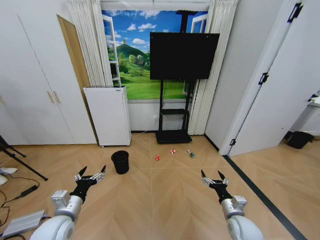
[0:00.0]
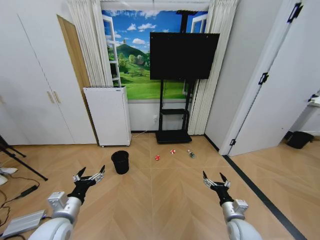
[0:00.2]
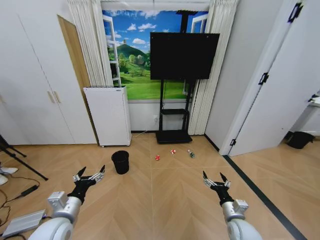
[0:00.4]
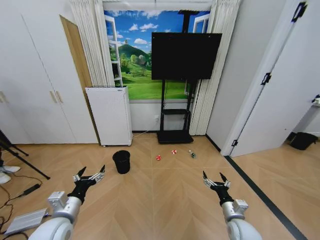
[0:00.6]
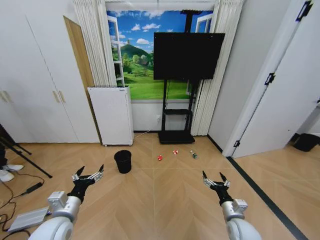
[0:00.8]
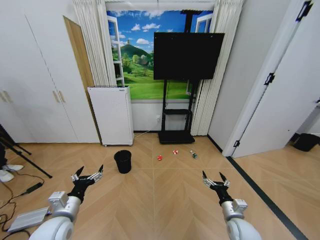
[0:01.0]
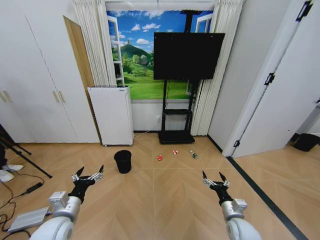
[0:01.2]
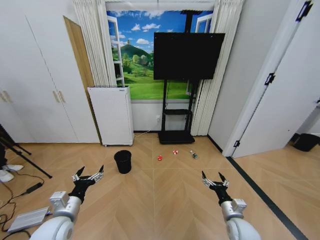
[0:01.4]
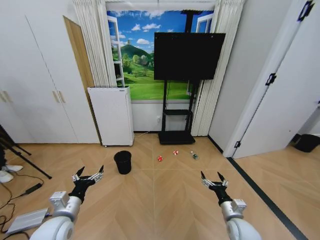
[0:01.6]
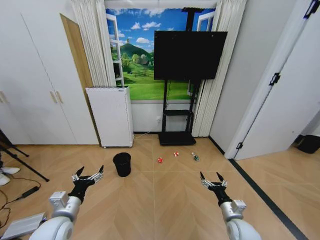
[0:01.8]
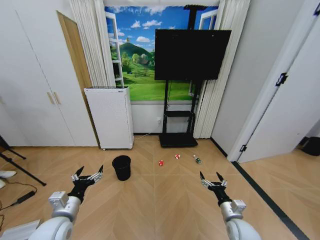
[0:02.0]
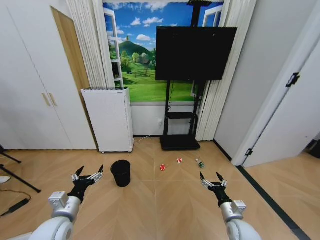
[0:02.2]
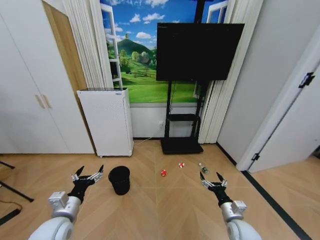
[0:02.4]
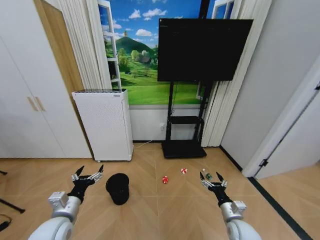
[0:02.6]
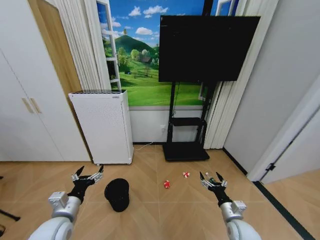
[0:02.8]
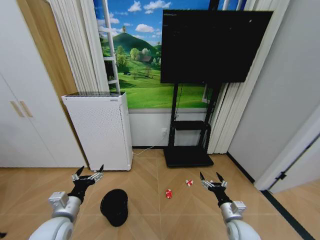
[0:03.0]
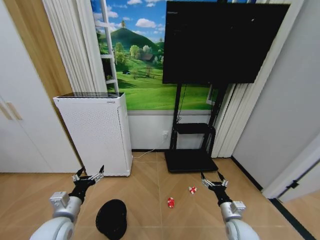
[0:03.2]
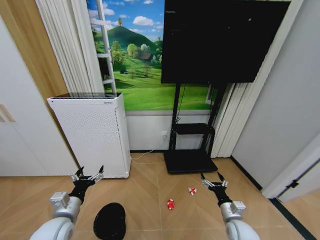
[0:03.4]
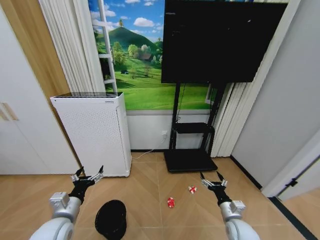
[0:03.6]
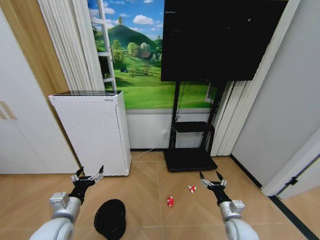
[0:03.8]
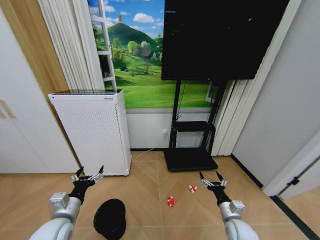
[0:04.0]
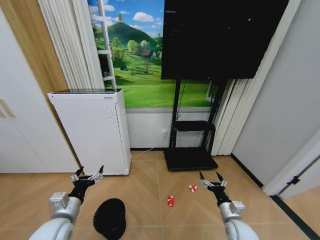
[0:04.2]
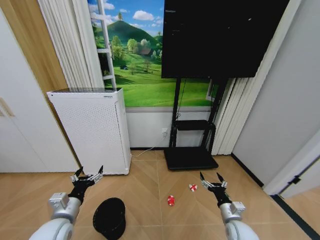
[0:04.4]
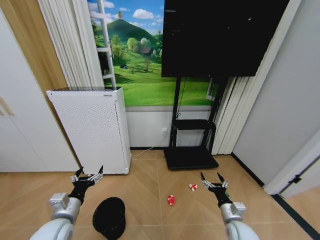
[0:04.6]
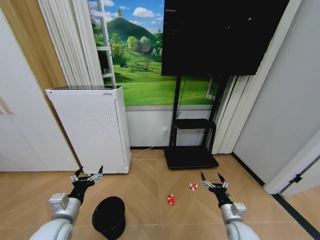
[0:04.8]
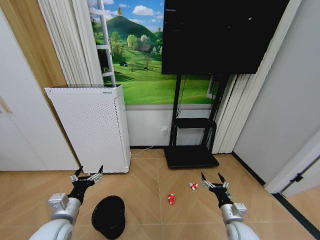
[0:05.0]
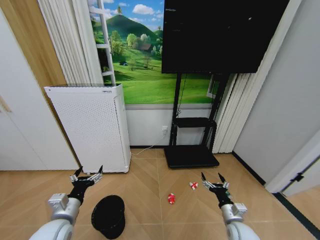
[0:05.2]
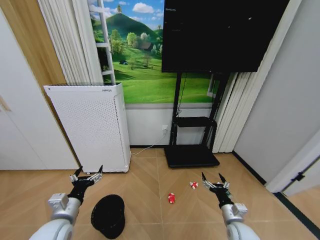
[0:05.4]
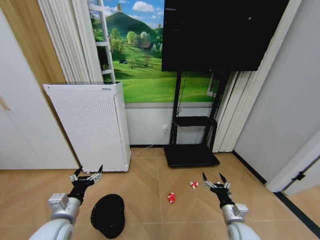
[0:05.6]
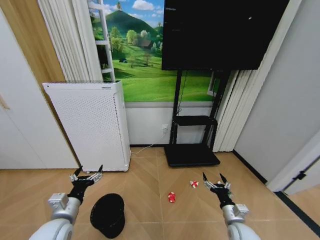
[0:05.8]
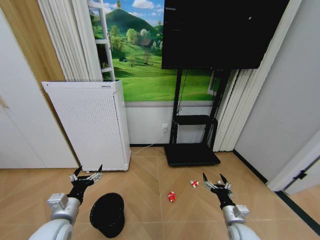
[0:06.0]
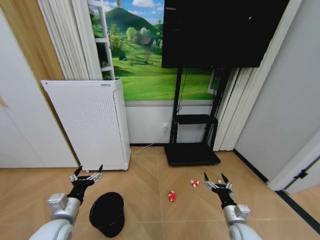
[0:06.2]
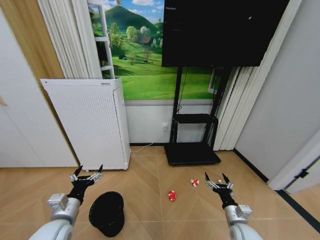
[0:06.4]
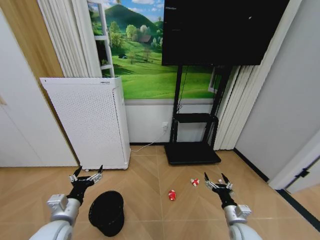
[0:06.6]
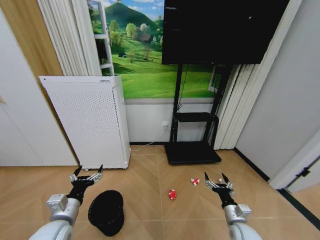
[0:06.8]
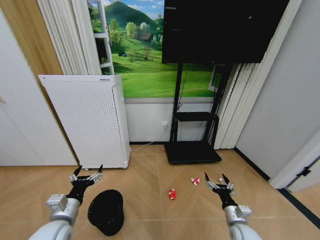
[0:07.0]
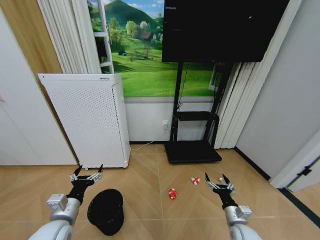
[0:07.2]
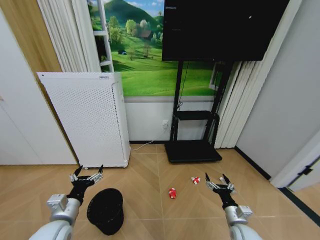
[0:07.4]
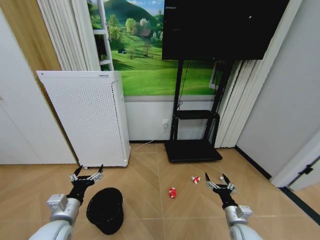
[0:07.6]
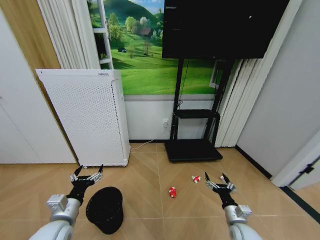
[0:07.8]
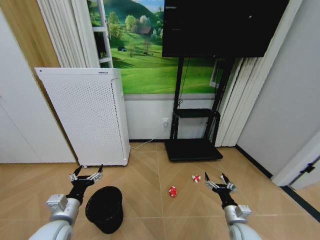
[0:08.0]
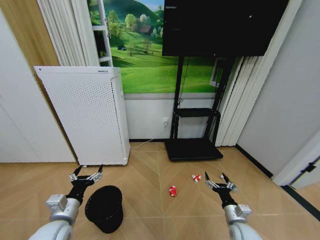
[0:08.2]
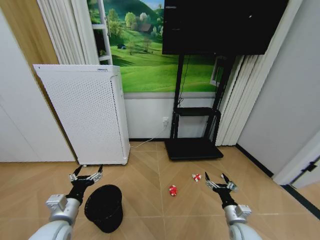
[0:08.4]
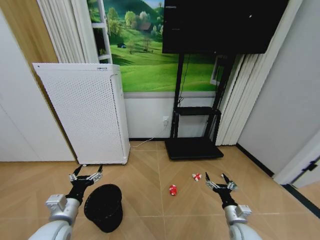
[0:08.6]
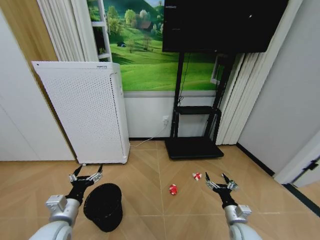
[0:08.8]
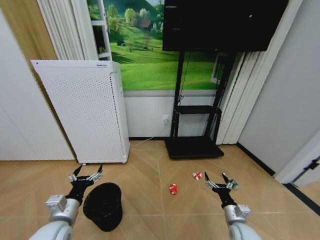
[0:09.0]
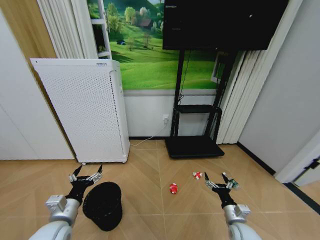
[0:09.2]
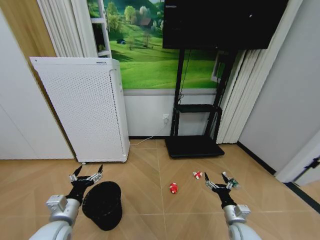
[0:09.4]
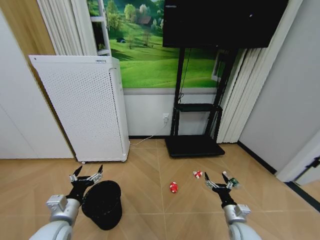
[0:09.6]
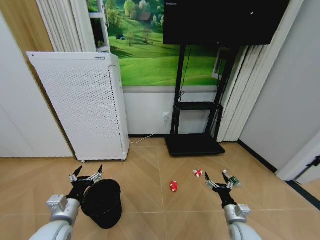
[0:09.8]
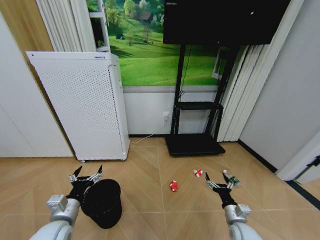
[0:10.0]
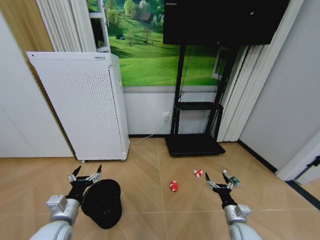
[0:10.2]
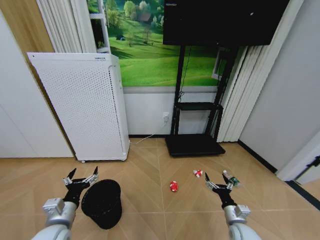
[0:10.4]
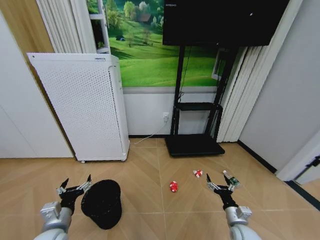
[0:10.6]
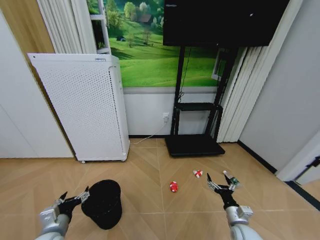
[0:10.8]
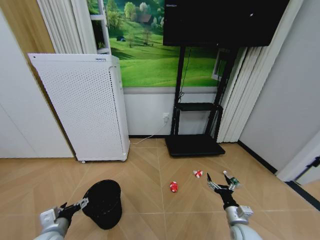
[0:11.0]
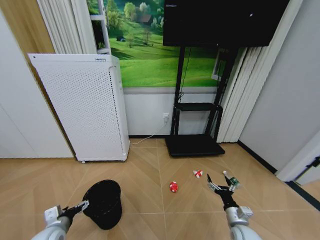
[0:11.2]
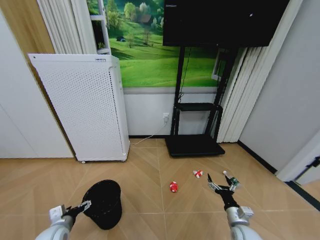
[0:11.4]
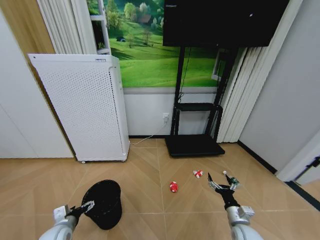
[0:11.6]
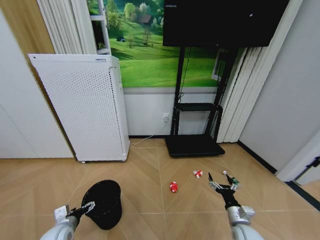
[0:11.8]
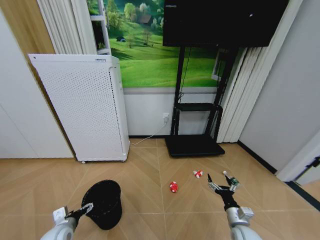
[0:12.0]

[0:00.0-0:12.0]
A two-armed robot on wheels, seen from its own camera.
Task of the whole recording: Pick up the trash bin and place the garbage on the floor into it.
0:04.4 to 0:06.0: Both grippers stay about where they are.
0:06.0 to 0:09.0: Neither gripper changes place.
0:09.0 to 0:10.4: The grippers stay close to where they were, moving slightly.
0:10.4 to 0:12.0: The left gripper moves downward, some 10 cm.

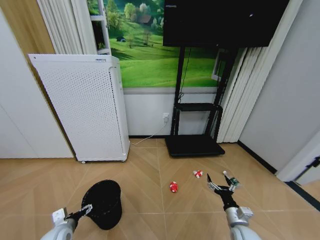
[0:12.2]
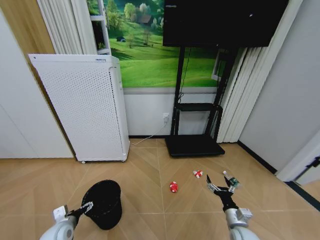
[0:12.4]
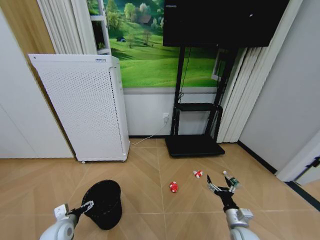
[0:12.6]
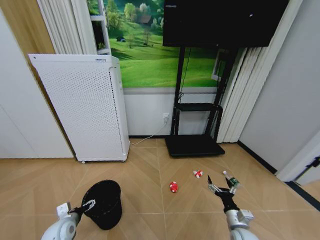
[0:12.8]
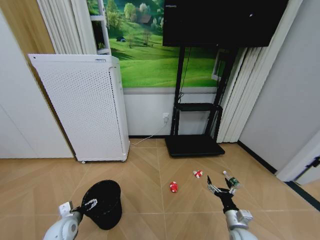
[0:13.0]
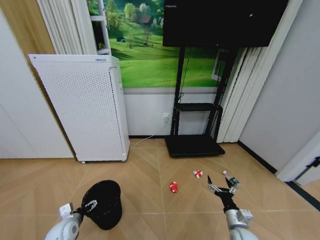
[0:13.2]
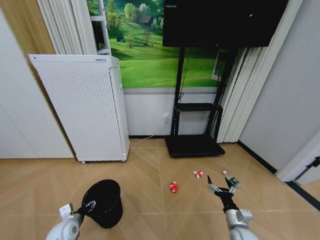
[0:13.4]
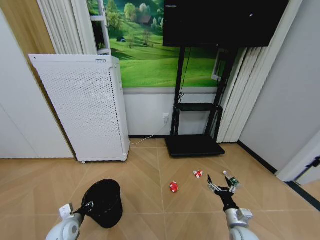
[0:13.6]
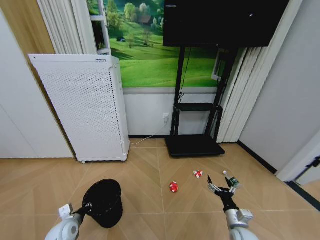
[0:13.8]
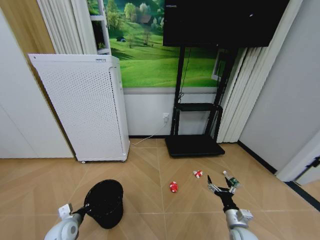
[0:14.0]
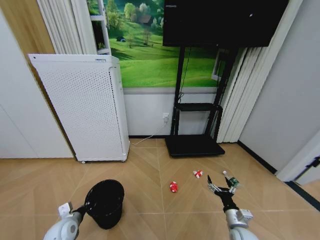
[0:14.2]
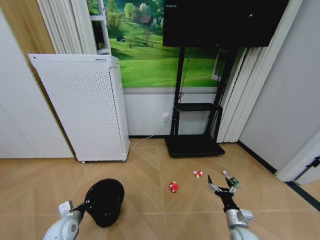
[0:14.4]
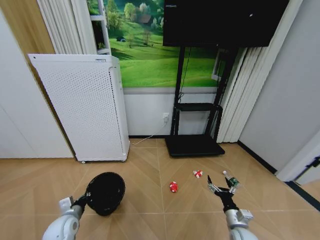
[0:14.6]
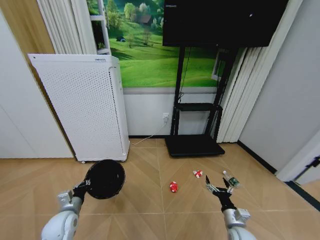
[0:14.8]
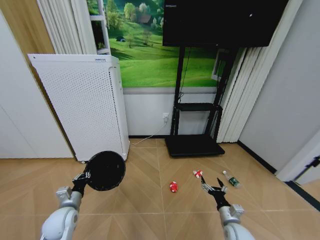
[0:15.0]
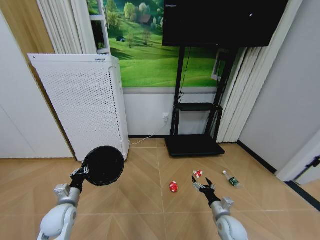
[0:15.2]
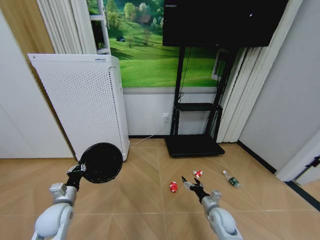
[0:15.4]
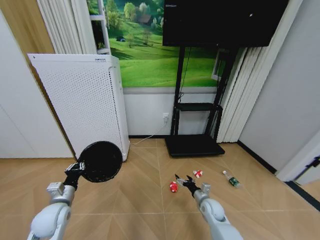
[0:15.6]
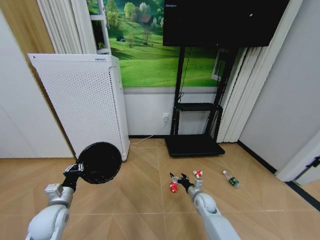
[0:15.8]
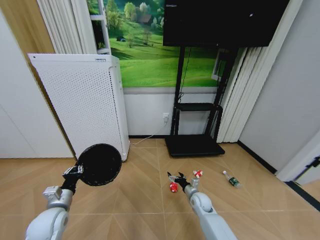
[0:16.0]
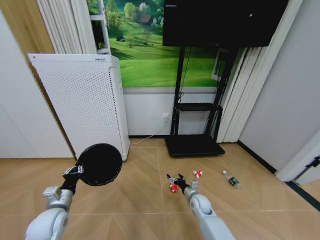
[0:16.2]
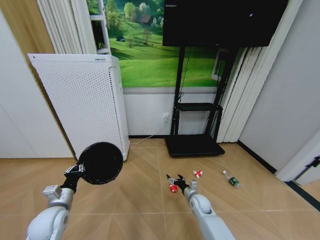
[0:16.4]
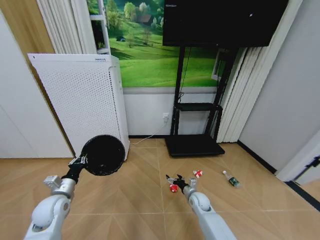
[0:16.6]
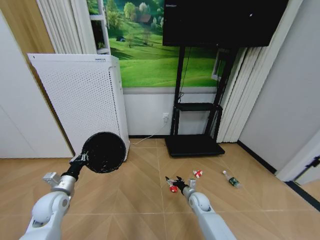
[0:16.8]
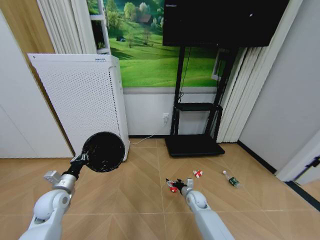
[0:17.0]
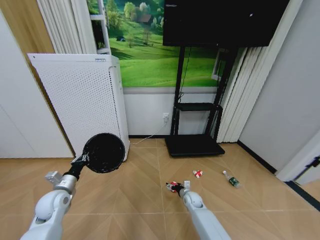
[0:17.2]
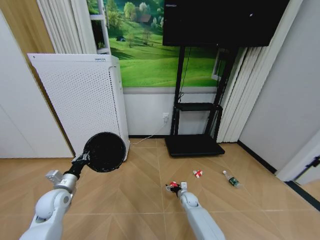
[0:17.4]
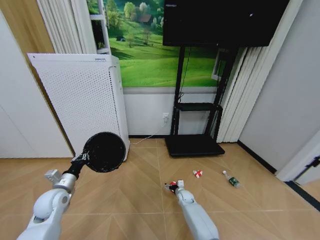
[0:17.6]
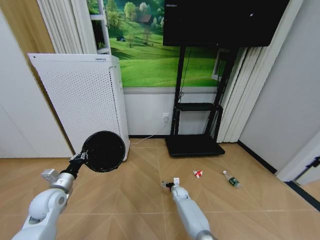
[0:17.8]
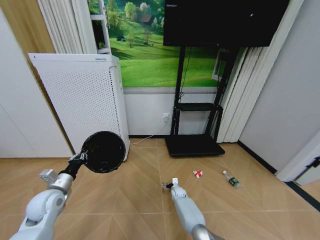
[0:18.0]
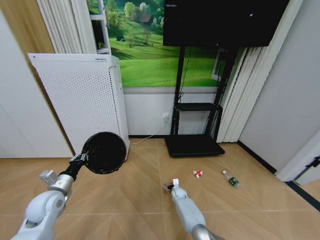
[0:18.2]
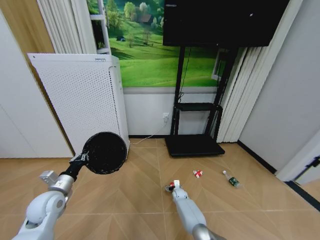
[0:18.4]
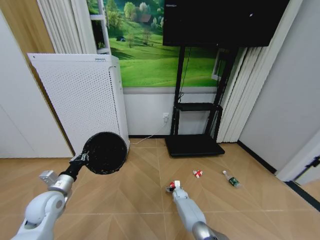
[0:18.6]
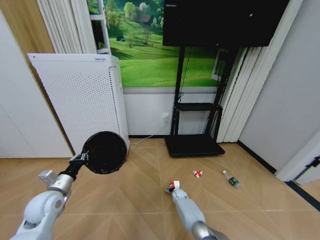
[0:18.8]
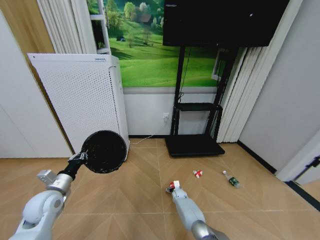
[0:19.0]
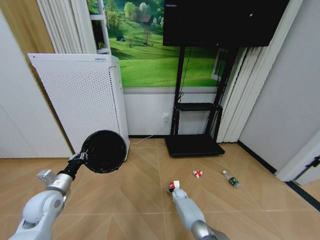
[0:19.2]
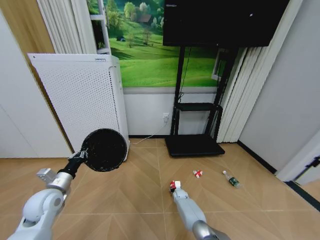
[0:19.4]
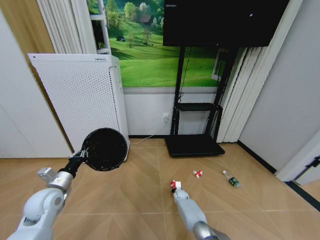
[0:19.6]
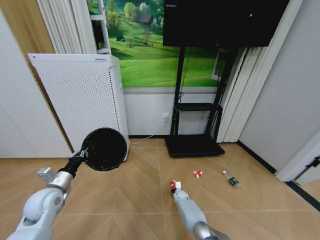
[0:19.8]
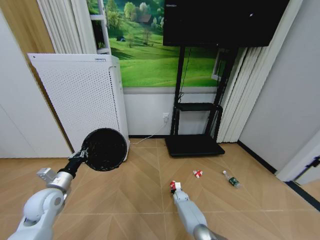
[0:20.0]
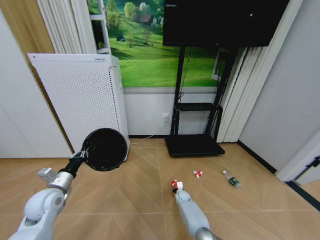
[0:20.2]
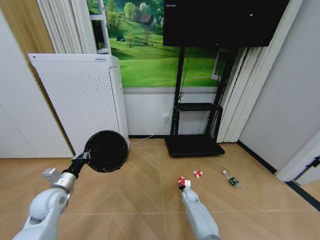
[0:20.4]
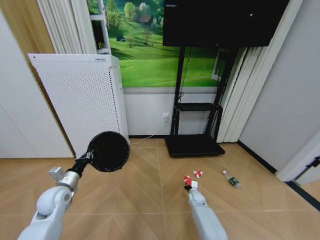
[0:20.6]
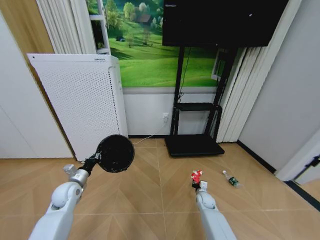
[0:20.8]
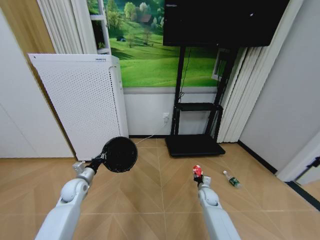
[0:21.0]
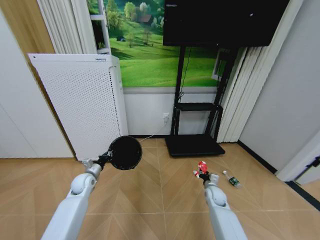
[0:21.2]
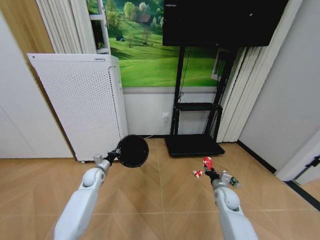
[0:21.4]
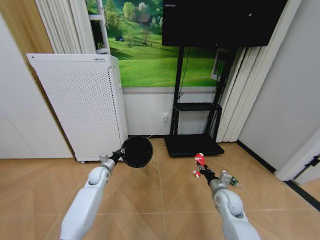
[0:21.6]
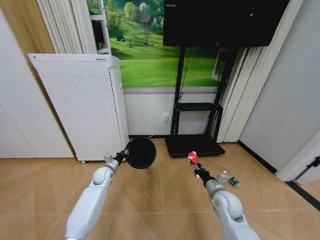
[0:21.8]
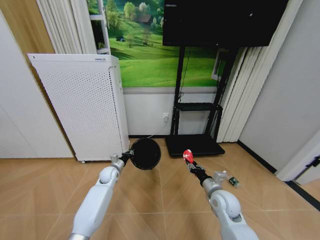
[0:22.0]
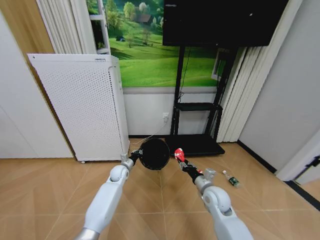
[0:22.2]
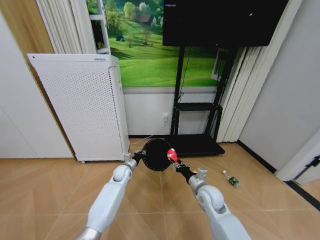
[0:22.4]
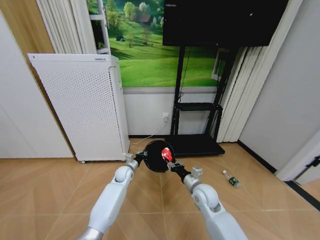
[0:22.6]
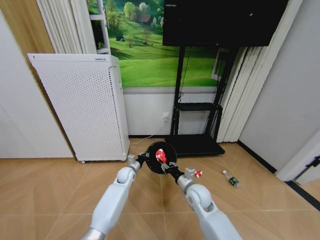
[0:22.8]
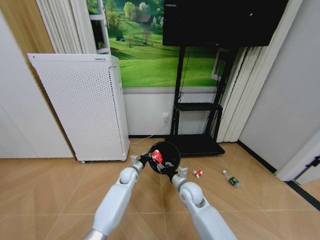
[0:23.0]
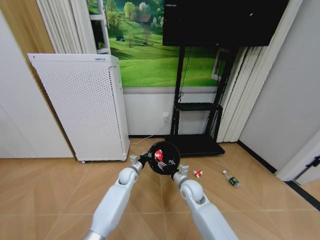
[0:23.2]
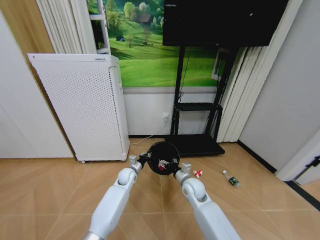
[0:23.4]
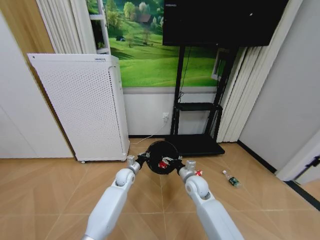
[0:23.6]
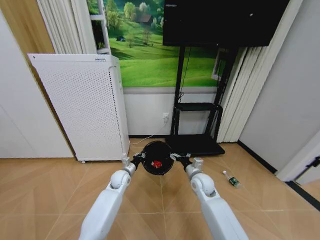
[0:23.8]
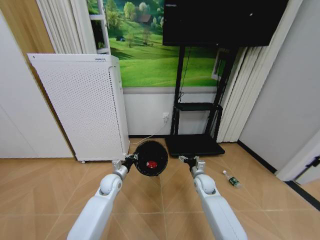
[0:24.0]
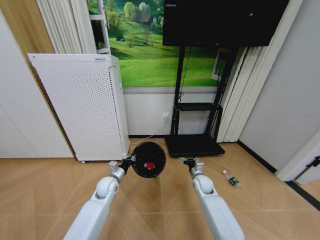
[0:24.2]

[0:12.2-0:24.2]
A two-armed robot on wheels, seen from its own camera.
Task of the whole recording: Pick up the trash bin and place the garbage on the floor into it.
0:12.2 to 0:13.8: The left gripper closes.
0:13.8 to 0:15.2: The left gripper shifts about 5 cm upward. Meanwhile the right gripper ends up some 5 cm from where it was.
0:15.2 to 0:16.6: The right gripper is displaced forward and to the left by about 15 cm.
0:16.6 to 0:18.2: The right gripper moves downward, forward and to the left, approximately 15 cm.
0:18.2 to 0:19.8: The right gripper closes its fingers.
0:19.8 to 0:21.2: The left gripper travels forward and downward by some 15 cm, while the right gripper heads upward, to the right and backward, covering approximately 25 cm.
0:21.2 to 0:22.6: The left gripper shifts about 20 cm to the right. The right gripper is displaced upward, to the left and backward by roughly 15 cm.
0:22.6 to 0:24.2: The left gripper heads backward and to the left, covering approximately 10 cm. Meanwhile the right gripper travels forward and downward by approximately 10 cm, and opens its fingers.
